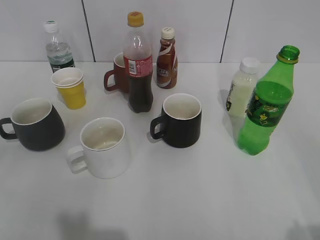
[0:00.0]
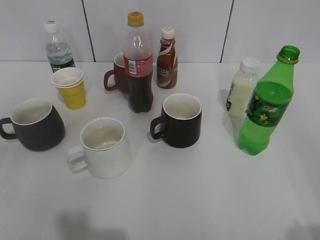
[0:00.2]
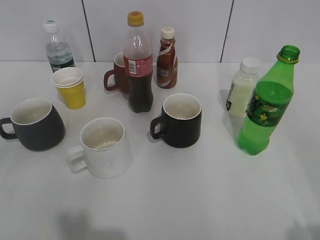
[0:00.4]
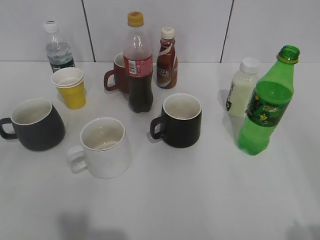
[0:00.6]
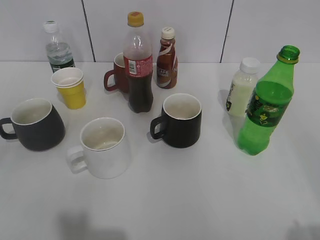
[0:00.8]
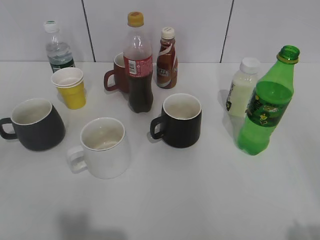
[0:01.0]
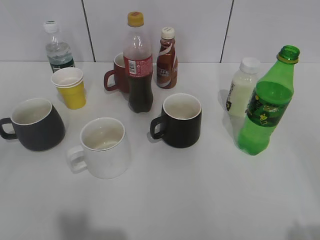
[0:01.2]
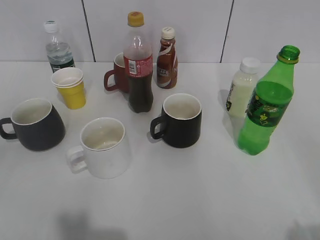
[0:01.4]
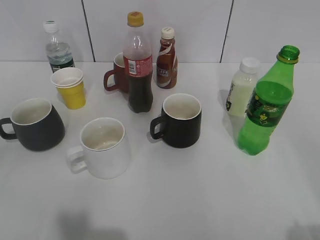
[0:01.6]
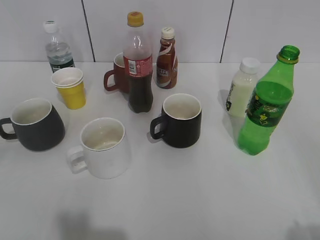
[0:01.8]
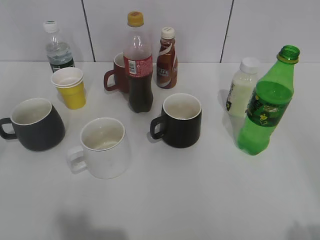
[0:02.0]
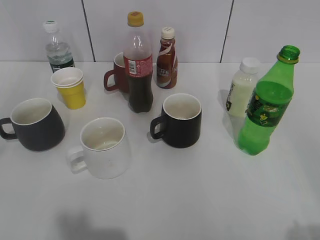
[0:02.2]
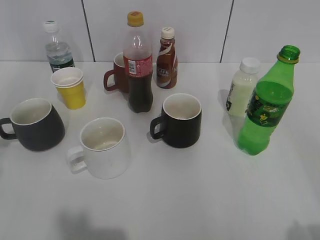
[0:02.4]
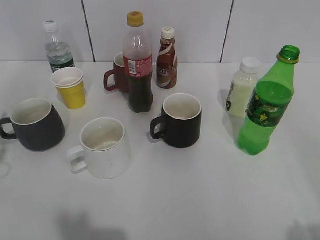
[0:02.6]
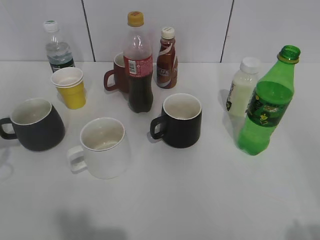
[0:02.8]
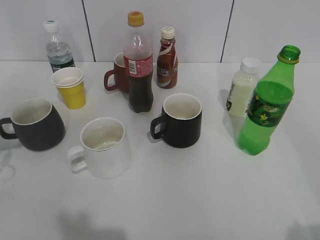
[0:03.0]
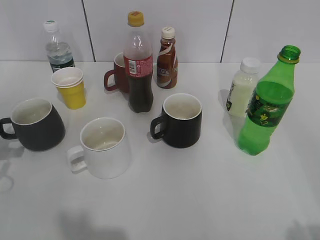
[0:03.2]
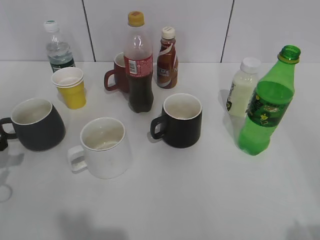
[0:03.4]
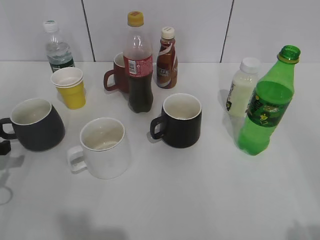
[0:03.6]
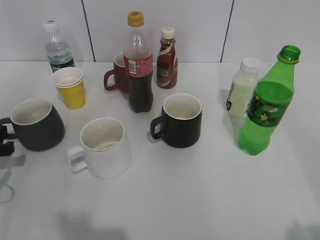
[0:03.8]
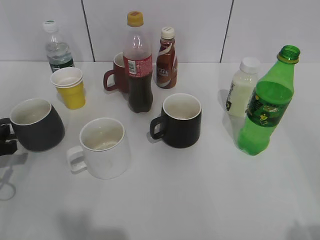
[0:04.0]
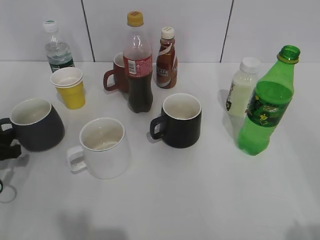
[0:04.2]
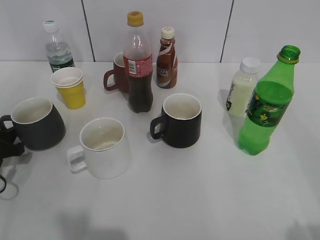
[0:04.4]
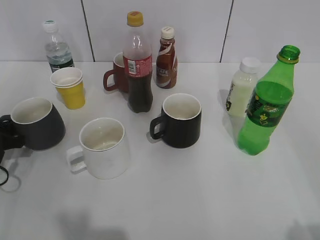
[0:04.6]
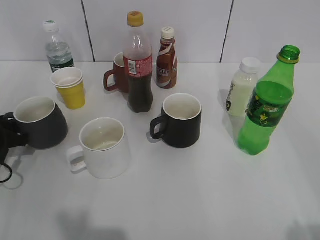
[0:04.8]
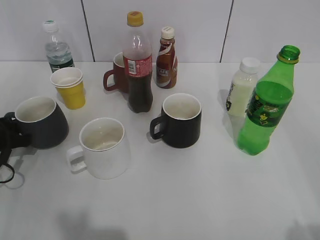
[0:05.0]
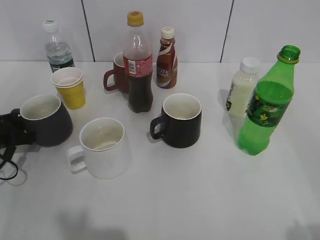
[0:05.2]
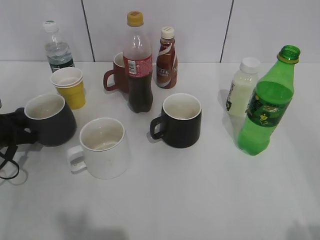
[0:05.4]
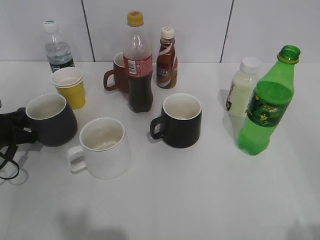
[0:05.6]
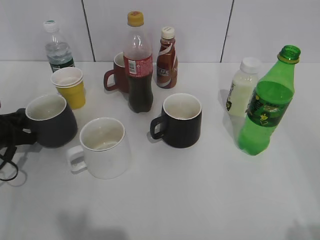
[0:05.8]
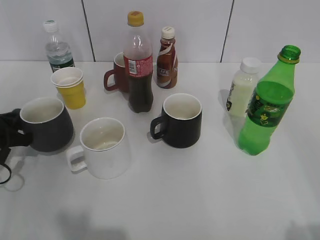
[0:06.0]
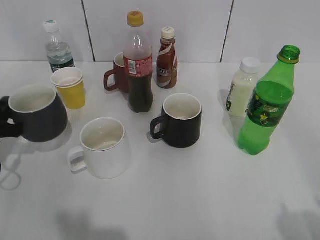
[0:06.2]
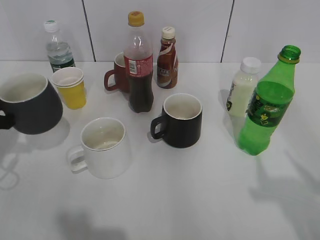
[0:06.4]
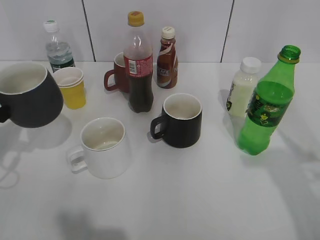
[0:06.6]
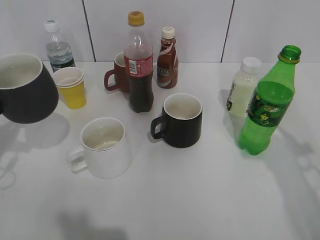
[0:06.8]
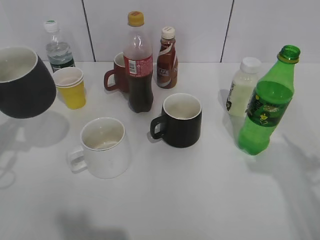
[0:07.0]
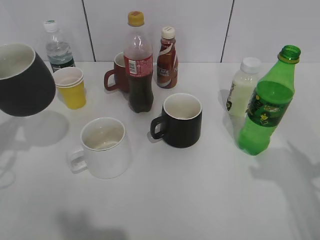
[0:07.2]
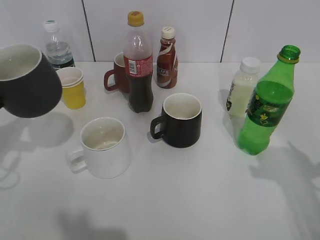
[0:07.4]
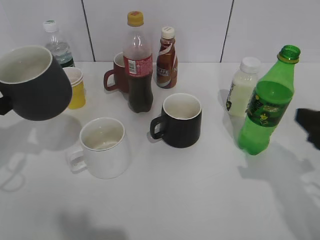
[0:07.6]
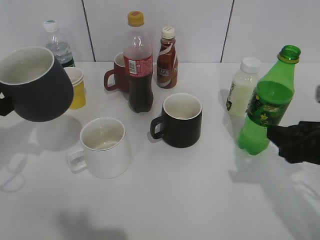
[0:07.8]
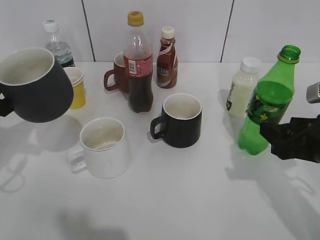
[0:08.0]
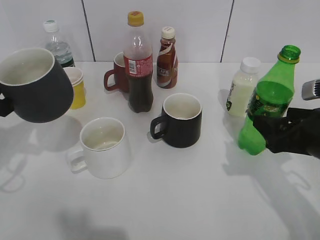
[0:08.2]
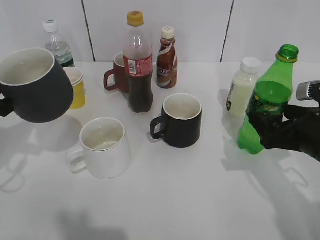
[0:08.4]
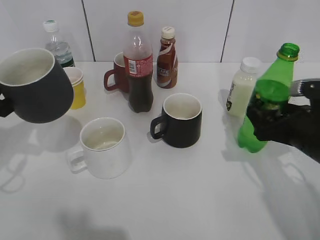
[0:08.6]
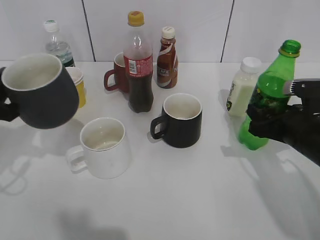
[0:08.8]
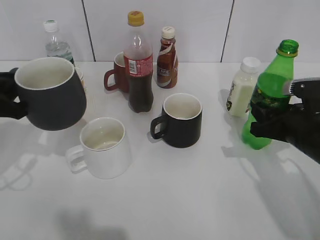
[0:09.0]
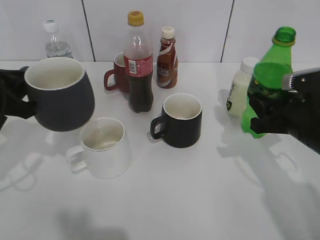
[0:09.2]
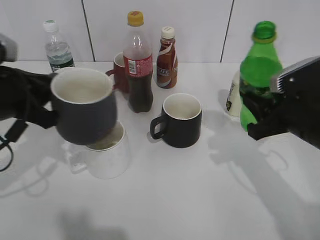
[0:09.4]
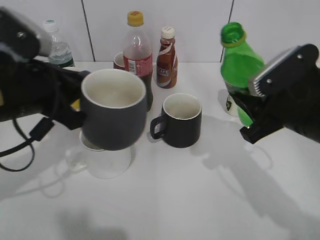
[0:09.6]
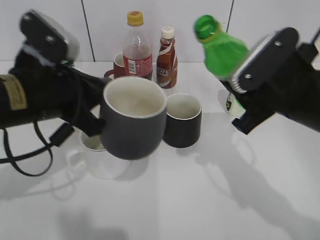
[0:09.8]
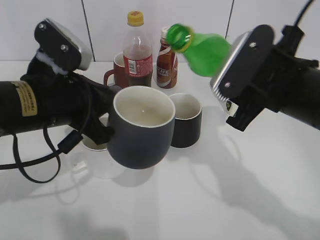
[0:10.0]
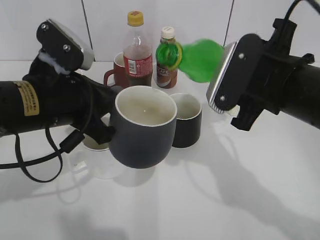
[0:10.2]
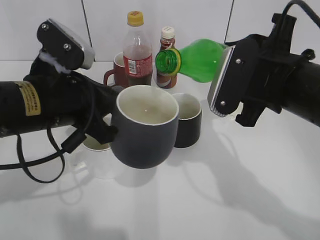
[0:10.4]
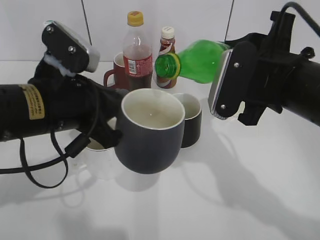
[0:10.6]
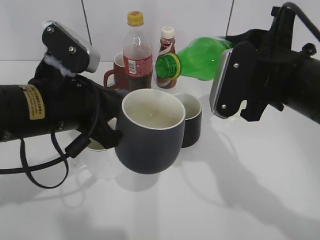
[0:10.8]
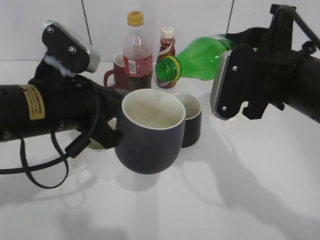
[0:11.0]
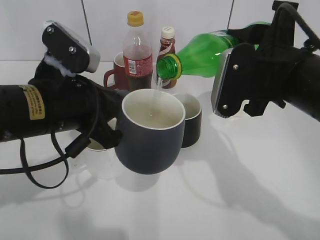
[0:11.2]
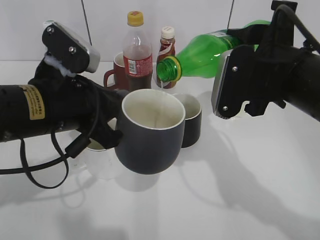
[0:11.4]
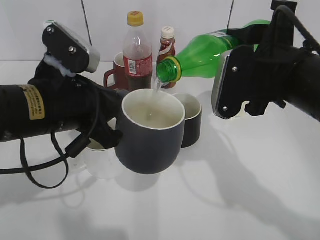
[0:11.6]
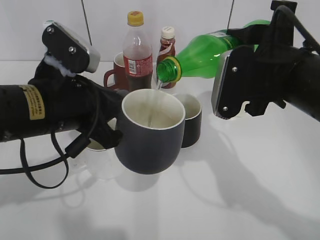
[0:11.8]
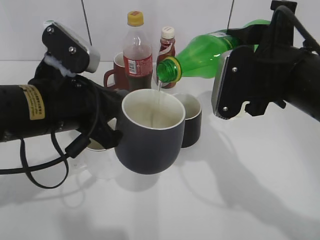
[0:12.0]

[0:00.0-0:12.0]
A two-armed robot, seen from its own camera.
Step, 0:05.0 to 0:06.8: Lift the grey cup with left gripper.
Step, 0:07.0 to 0:09.0: Grasp the bottle with sprite with right gripper.
0:03.0 to 0:04.4: The left gripper shifts approximately 10 cm downward, and opens up.
0:04.4 to 0:06.0: The left gripper closes its fingers.
0:06.0 to 0:07.6: The right gripper moves forward and downward, approximately 20 cm. Meanwhile the left gripper travels upward by approximately 10 cm.
0:07.6 to 0:09.0: The right gripper goes roughly 10 cm downward and forward, and closes its fingers.
0:09.0 to 0:10.4: The left gripper moves to the right, roughly 15 cm; the right gripper is displaced upward and to the left by some 15 cm.
0:10.4 to 0:12.0: The grippers make only small movements.

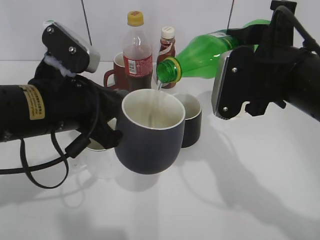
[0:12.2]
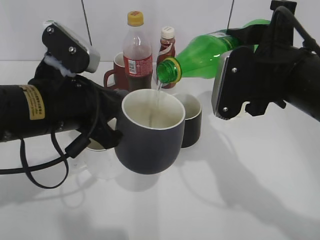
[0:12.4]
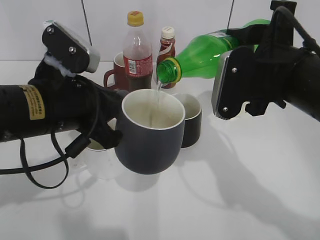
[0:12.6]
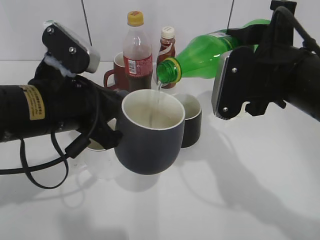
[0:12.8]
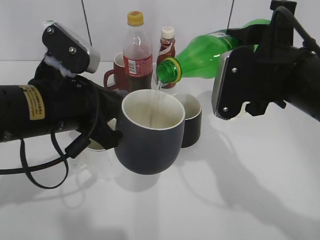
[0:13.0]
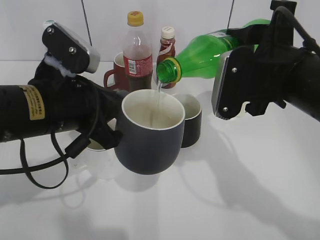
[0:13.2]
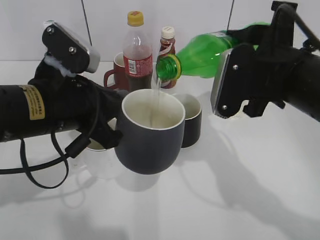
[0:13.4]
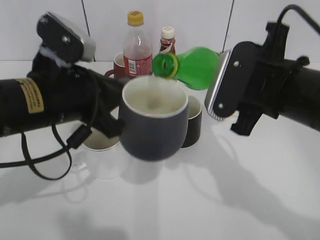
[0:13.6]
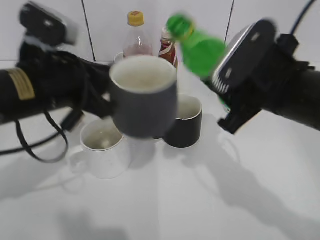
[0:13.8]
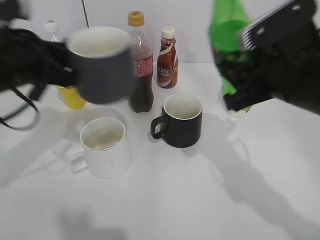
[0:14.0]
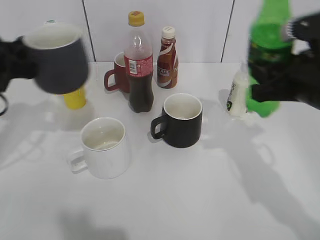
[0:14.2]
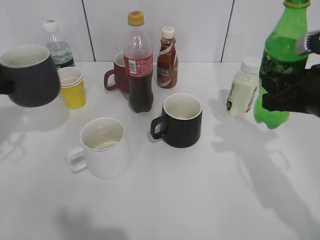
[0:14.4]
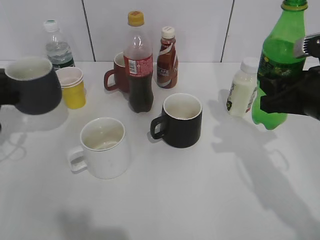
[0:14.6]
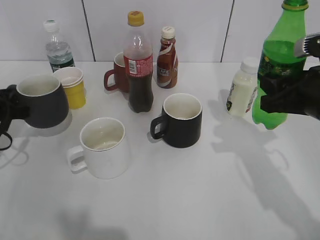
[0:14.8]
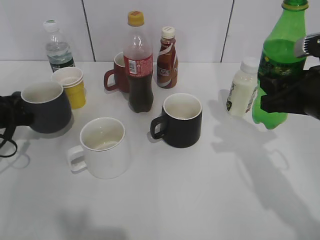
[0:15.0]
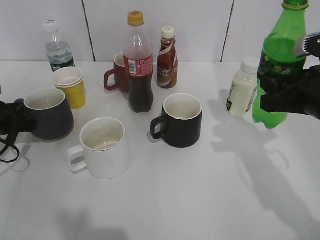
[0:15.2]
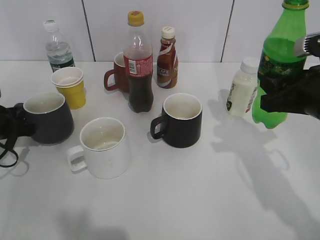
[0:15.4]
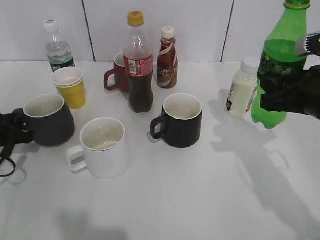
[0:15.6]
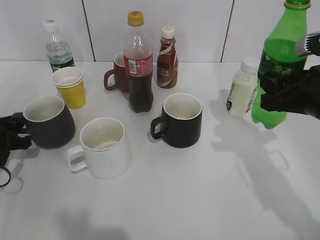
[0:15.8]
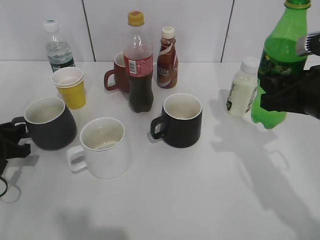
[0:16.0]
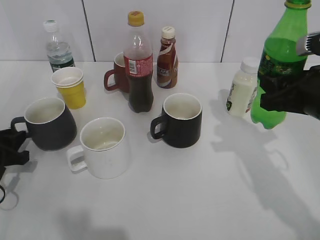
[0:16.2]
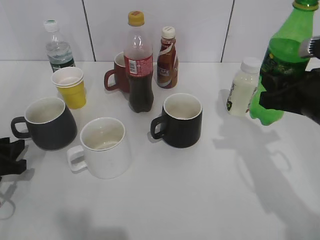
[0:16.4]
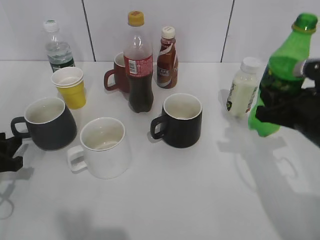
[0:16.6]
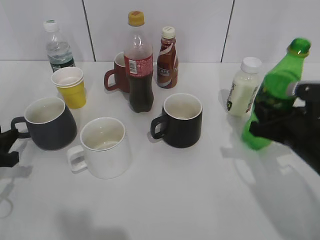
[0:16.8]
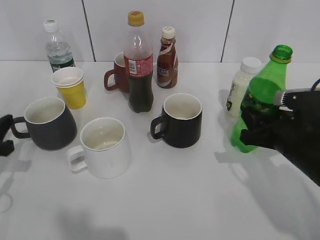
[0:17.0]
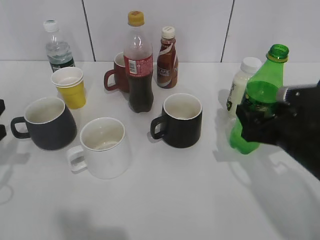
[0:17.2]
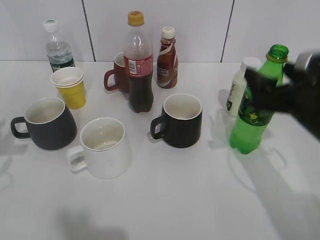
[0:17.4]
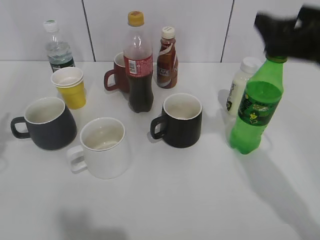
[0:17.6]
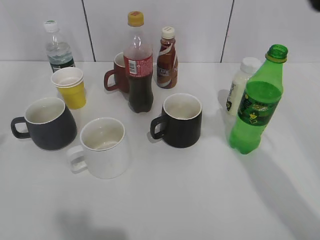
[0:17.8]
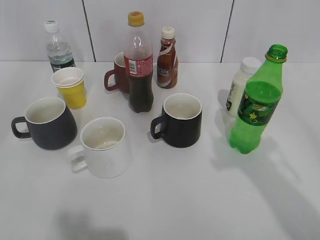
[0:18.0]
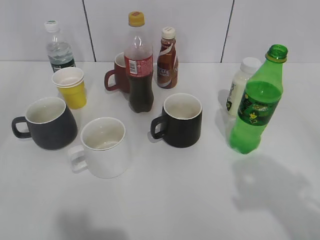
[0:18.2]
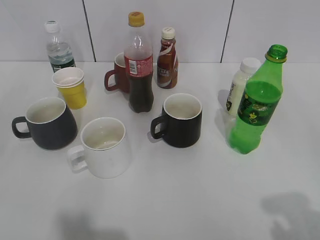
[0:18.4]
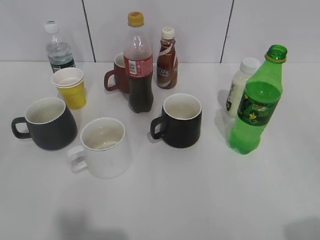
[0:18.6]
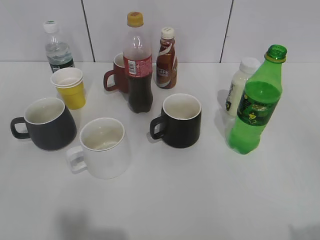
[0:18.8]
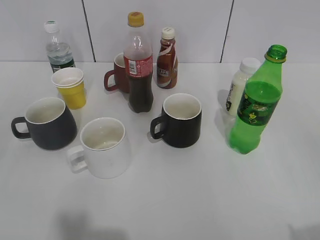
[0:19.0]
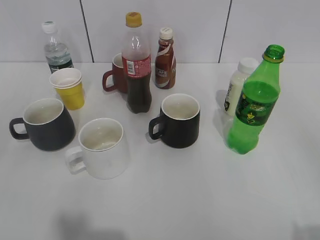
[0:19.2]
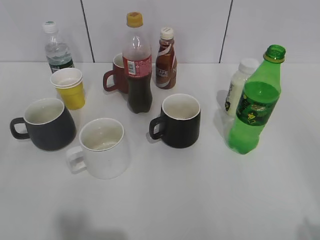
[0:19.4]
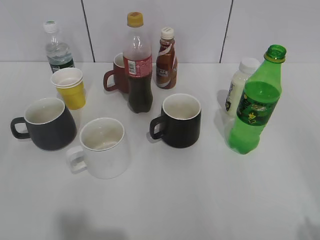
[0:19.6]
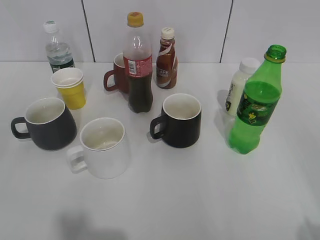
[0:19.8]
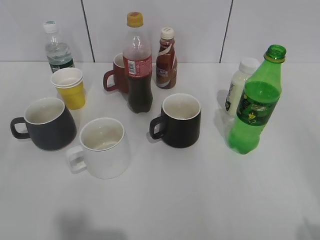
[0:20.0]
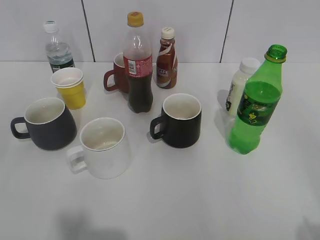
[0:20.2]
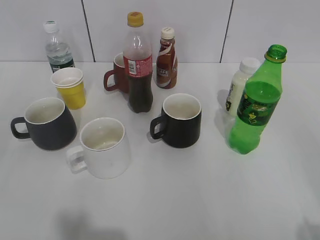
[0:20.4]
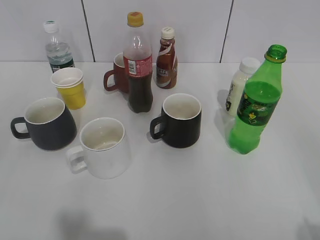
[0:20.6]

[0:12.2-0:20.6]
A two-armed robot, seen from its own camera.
Step, 0:14.0 to 0:16.0: Place the grey cup on the table with left gripper.
Step, 0:16.2 to 0:17.2: Place the sprite bottle on the table with right gripper.
0:13.6 to 0:15.0: The left gripper shifts approximately 25 cm to the left, downward and forward. The right gripper moves to the right, roughly 10 cm.
0:15.0 to 0:16.4: The left gripper heads backward, covering some 10 cm, and opens.
0:16.4 to 0:17.8: The right gripper heads upward, covering some 15 cm, and opens. The left gripper is displaced upward by about 25 cm.
0:17.8 to 0:19.2: The left gripper heads backward, covering about 20 cm. The right gripper goes approximately 25 cm backward and to the right.
0:19.2 to 0:20.6: The grippers move only a little.

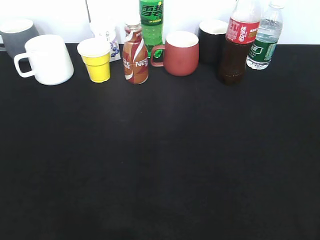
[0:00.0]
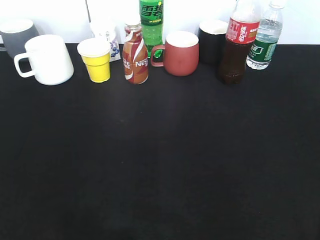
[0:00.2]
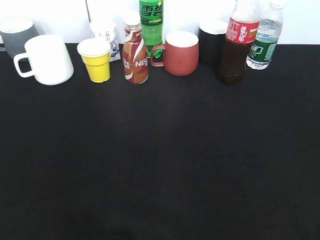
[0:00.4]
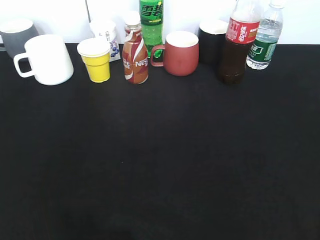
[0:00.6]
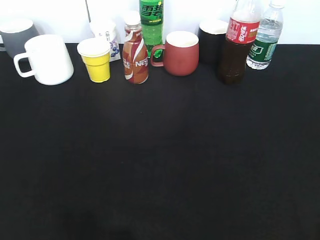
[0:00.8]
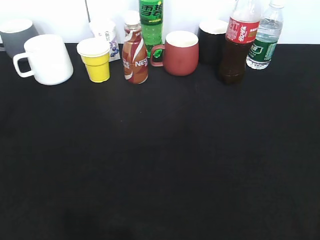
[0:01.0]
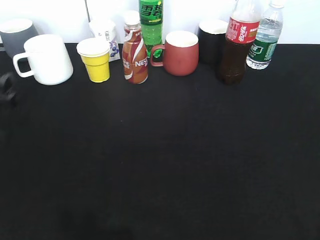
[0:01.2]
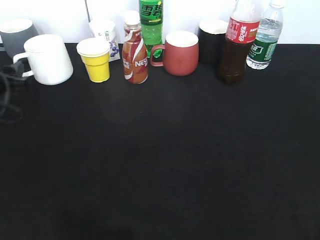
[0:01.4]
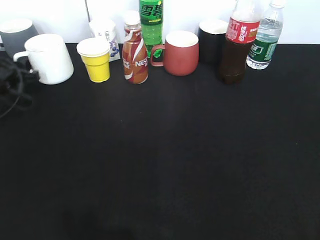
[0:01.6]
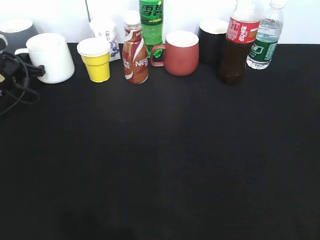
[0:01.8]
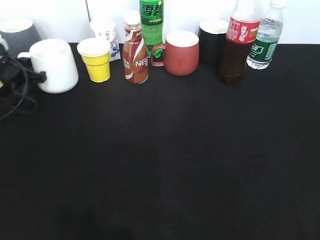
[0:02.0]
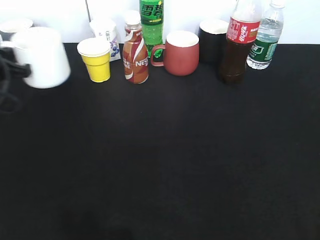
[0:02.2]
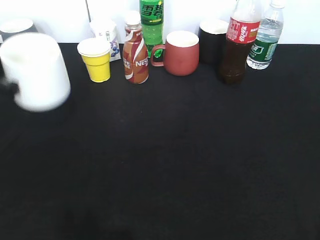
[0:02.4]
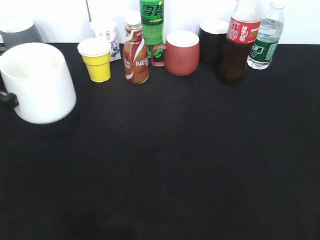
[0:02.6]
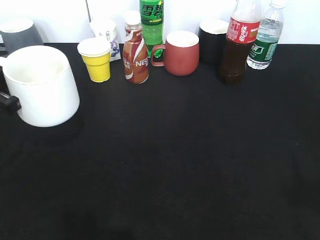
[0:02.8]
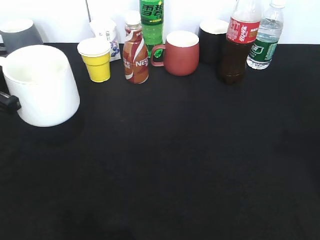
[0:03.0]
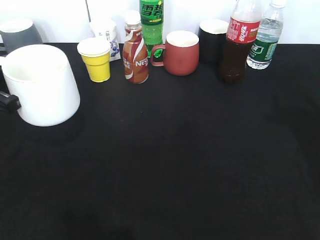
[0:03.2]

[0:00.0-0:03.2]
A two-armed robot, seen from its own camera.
Step, 0:00.0 to 0:01.8: Grasp the white cup with left gripper.
Step, 0:02.0 to 0:02.6: Lift the white cup with left gripper.
0:00.0 to 0:01.6: The left gripper goes about 40 cm forward and downward, and closes its fingers.
0:01.6 to 0:03.2: The left gripper is displaced backward and upward by approximately 20 cm, and closes its fingers.
